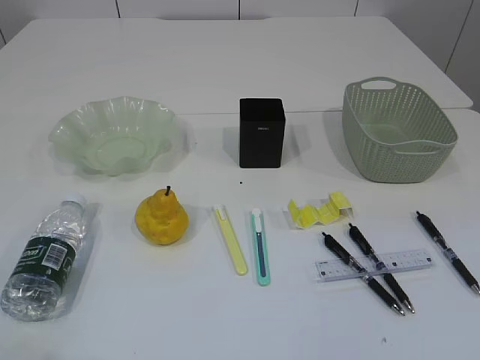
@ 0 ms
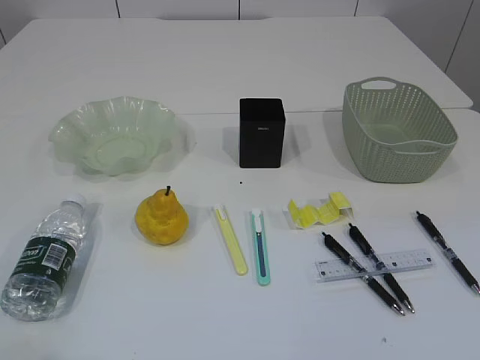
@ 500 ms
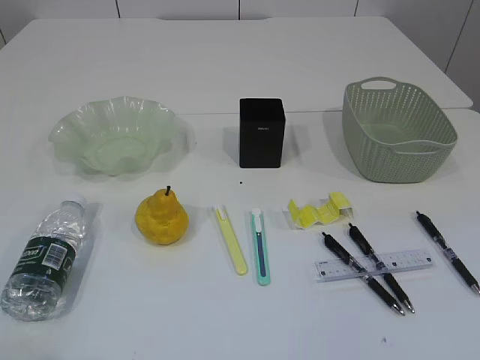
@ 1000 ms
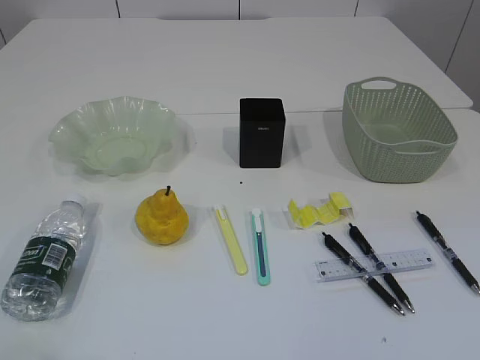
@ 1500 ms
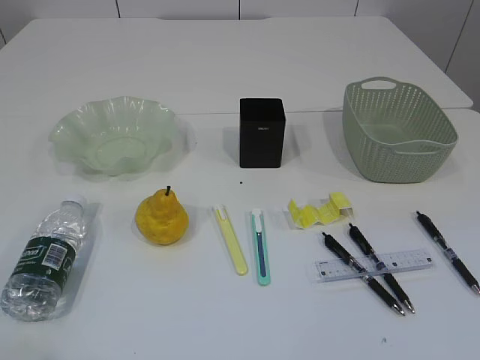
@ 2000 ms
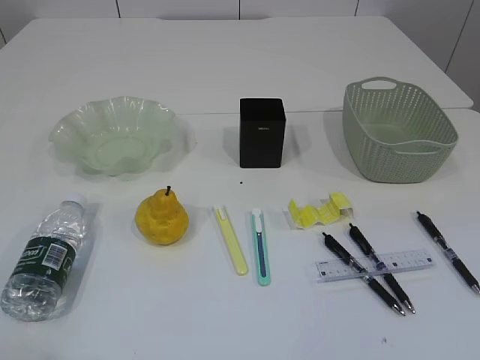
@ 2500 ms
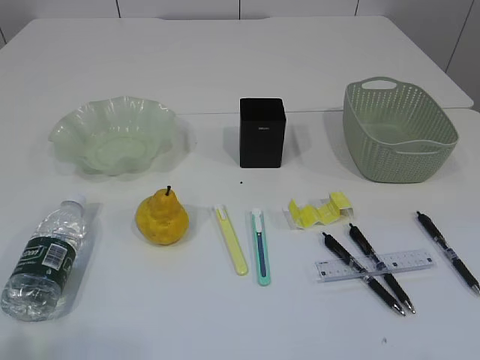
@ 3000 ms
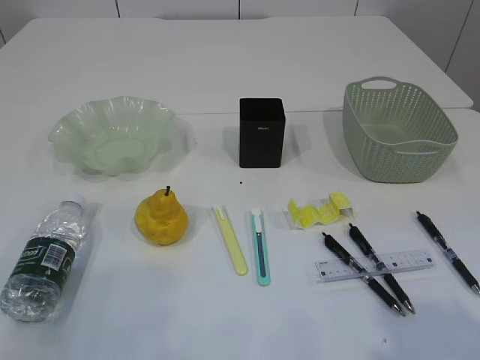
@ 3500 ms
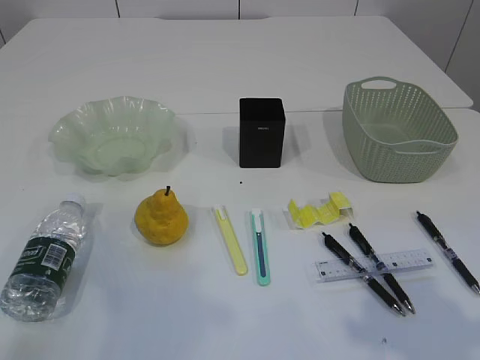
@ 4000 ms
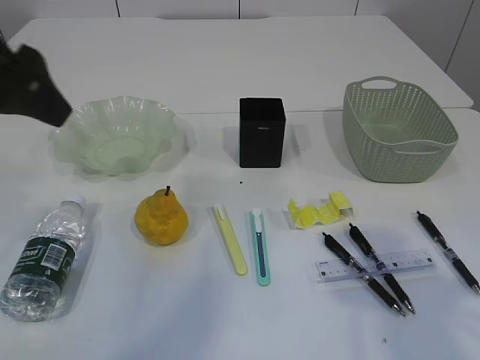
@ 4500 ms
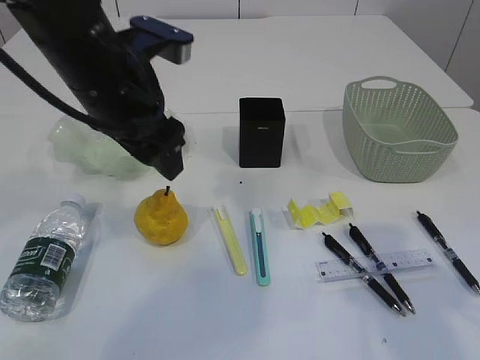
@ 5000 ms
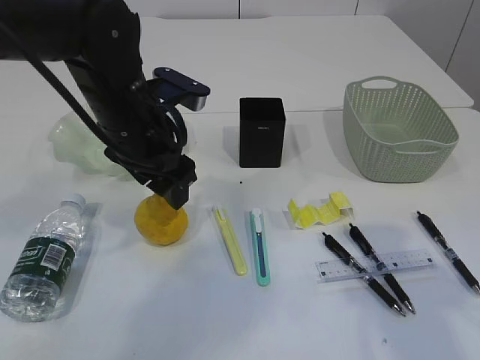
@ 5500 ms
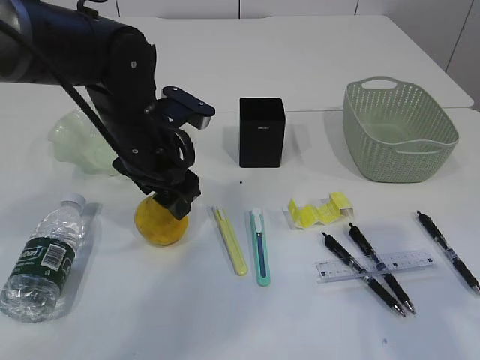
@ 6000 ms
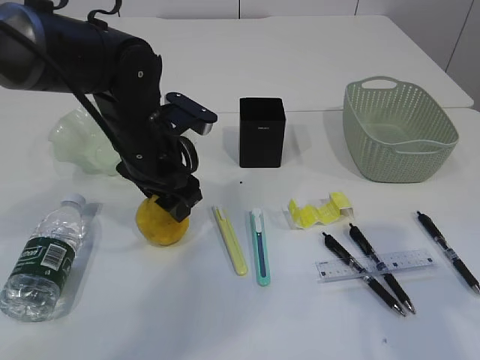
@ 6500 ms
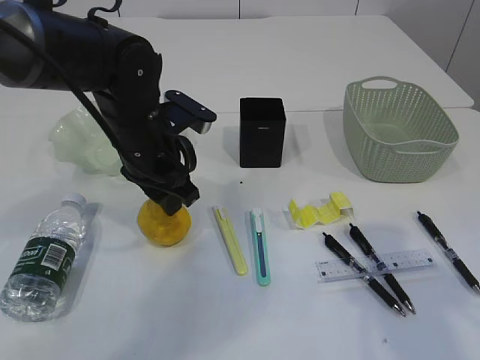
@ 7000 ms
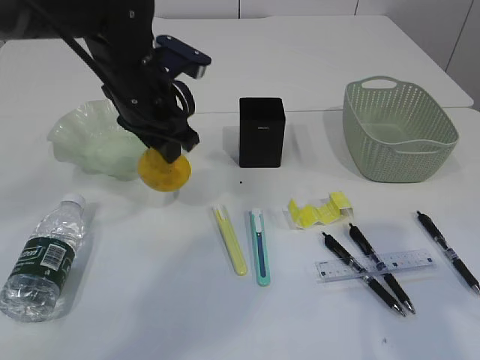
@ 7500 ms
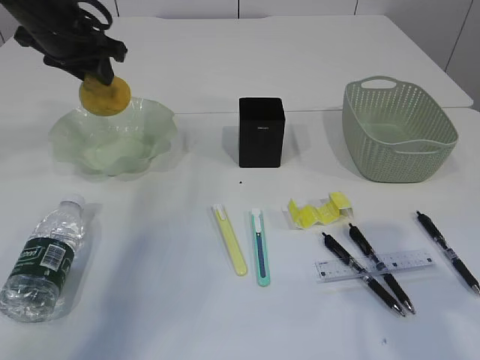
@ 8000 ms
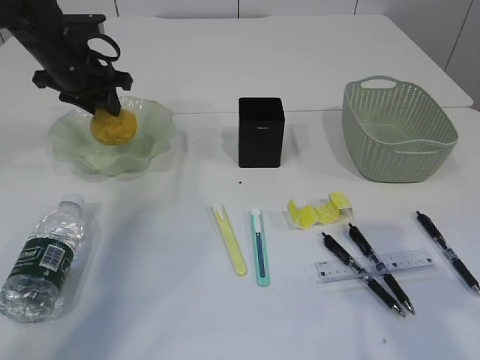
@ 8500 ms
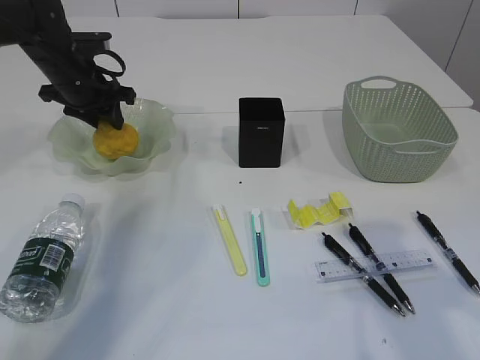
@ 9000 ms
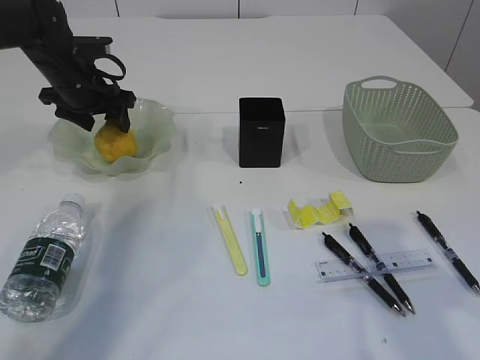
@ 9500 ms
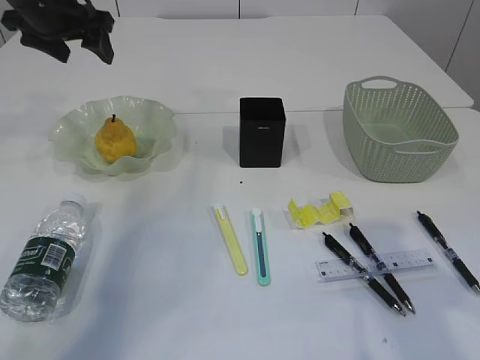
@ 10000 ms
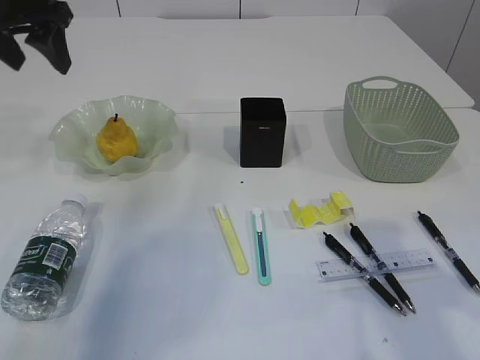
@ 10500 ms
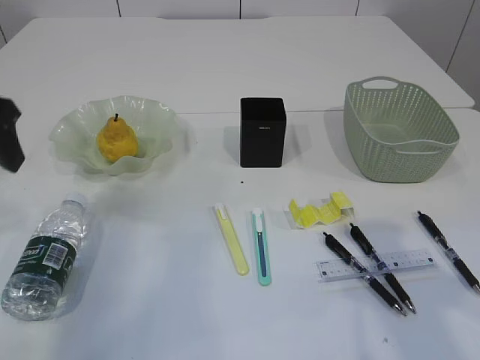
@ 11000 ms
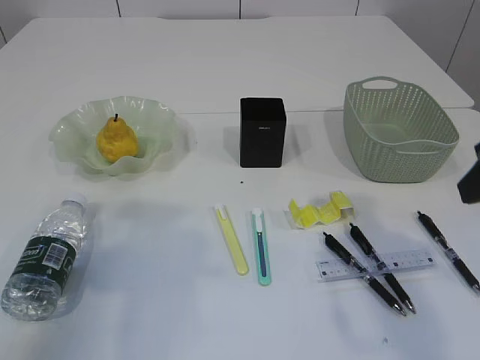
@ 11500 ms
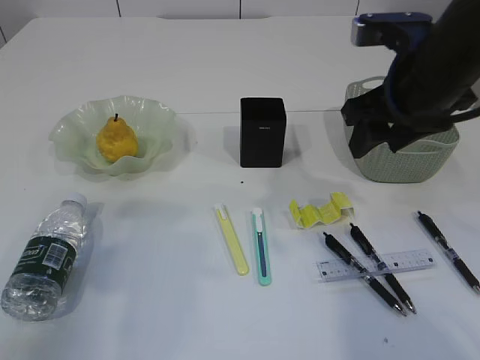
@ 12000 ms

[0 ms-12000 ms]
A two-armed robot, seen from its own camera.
Step, 7500 ms to 9500 ms: Place the pear in the plate.
2000 ms to 4000 ms: The left gripper is displaced forward and upward by some 15 cm. The right gripper heads forward, covering approximately 10 cm.
4000 ms to 6000 ms: The right gripper travels forward by roughly 5 cm. Meanwhile the left gripper shifts approximately 35 cm forward, to the right and downward.
6000 ms to 8000 ms: The left gripper heads to the left, forward and upward, covering roughly 20 cm, and closes up.
8000 ms to 10000 ms: The left gripper goes downward and returns, some 10 cm each way, and opens its fingers.
10000 ms to 12000 ms: The right gripper shifts about 15 cm forward and to the left; the left gripper moves backward, some 30 cm.

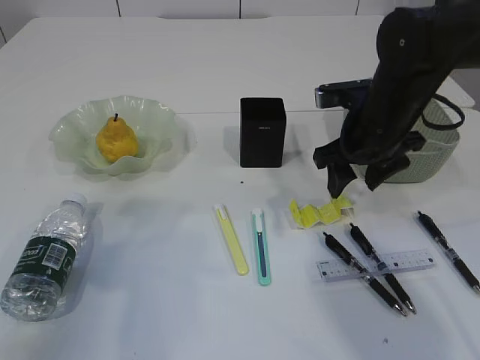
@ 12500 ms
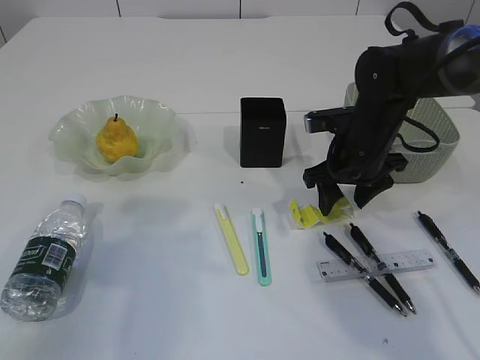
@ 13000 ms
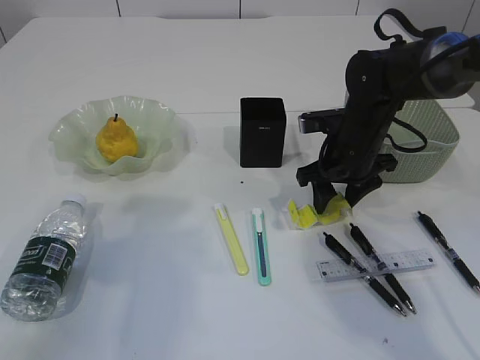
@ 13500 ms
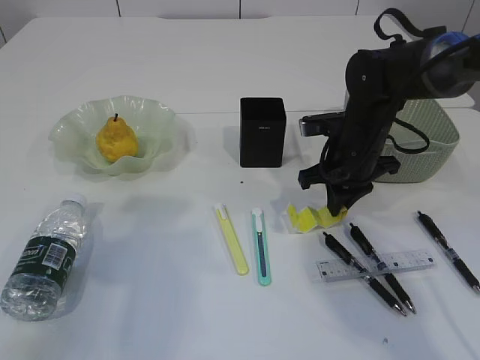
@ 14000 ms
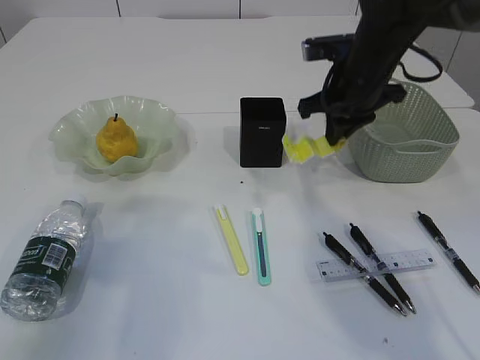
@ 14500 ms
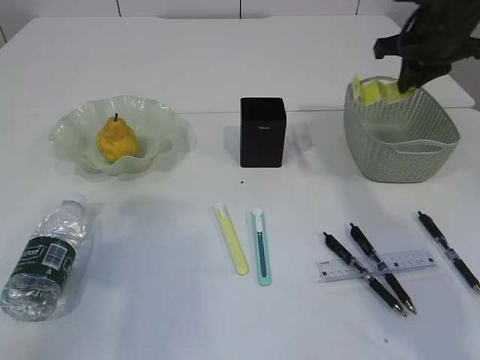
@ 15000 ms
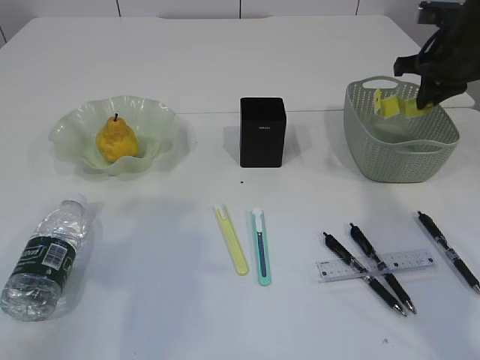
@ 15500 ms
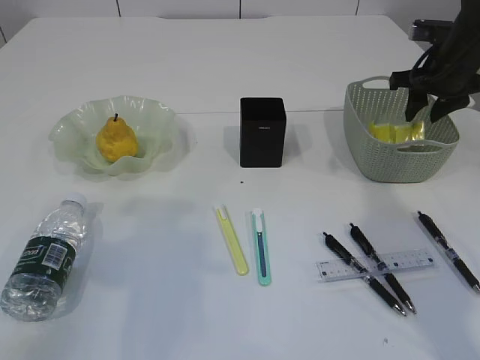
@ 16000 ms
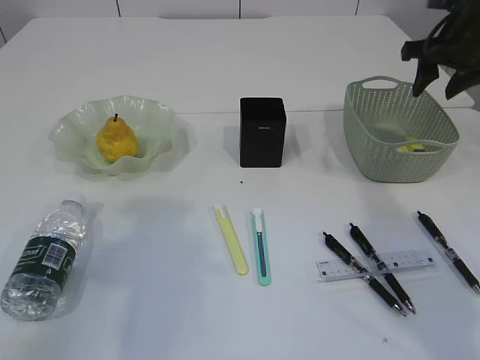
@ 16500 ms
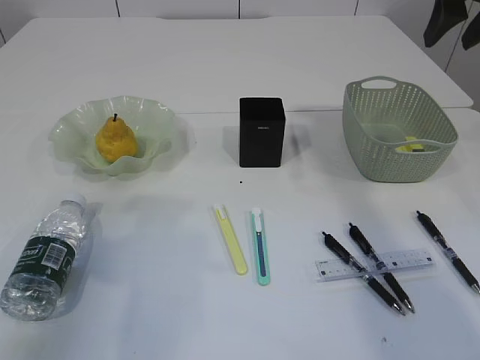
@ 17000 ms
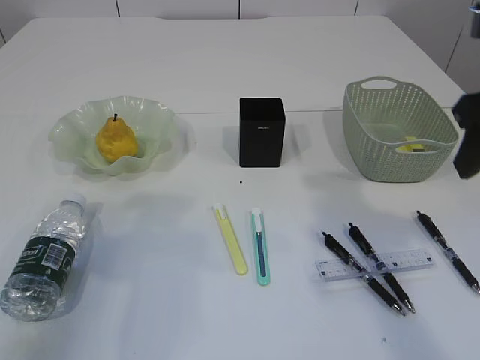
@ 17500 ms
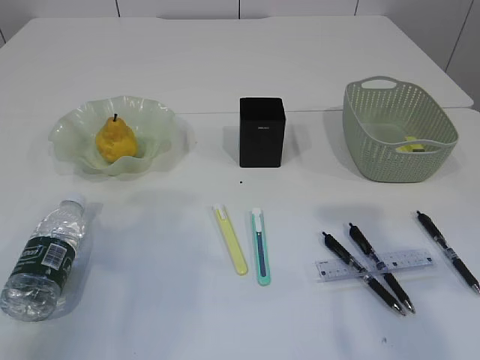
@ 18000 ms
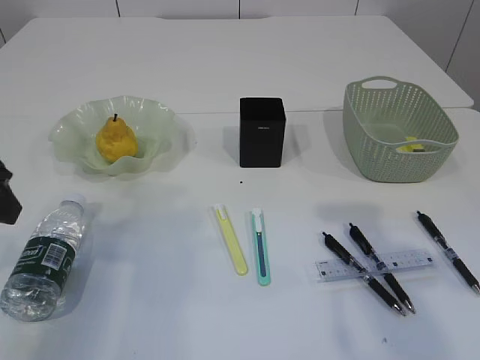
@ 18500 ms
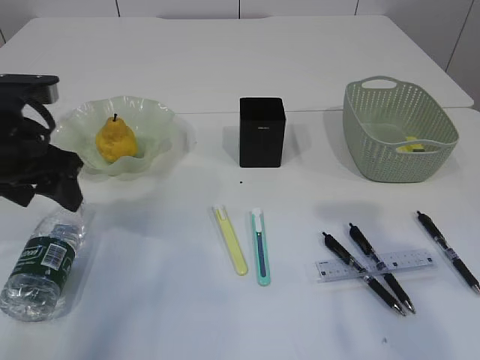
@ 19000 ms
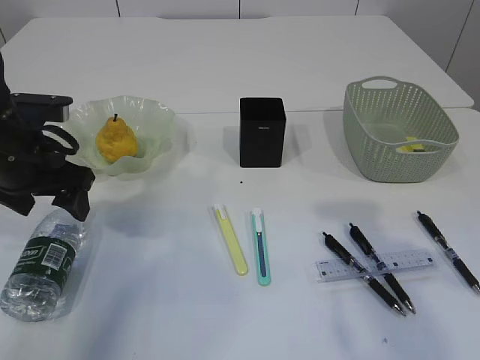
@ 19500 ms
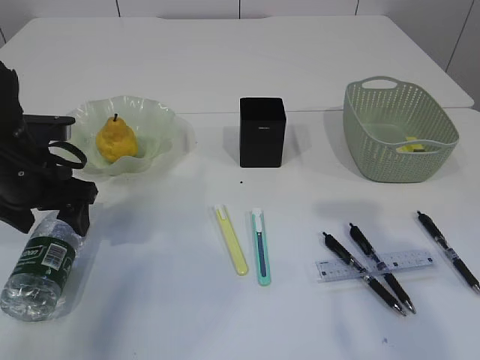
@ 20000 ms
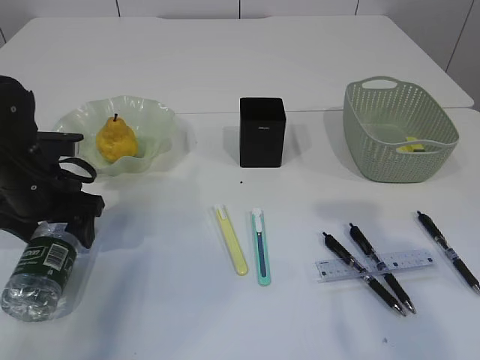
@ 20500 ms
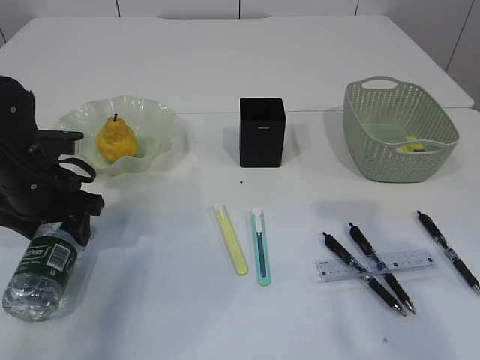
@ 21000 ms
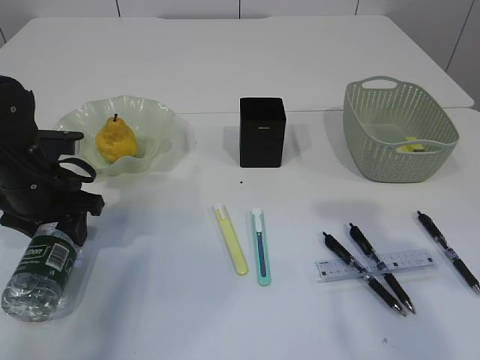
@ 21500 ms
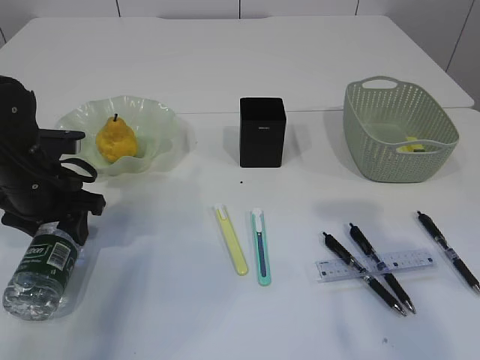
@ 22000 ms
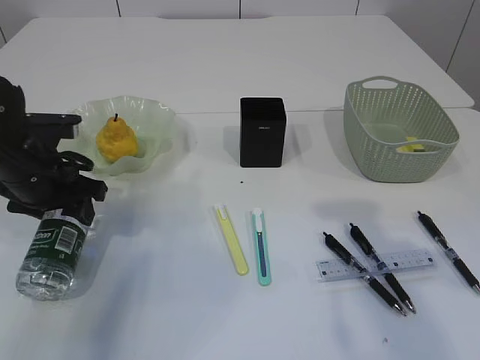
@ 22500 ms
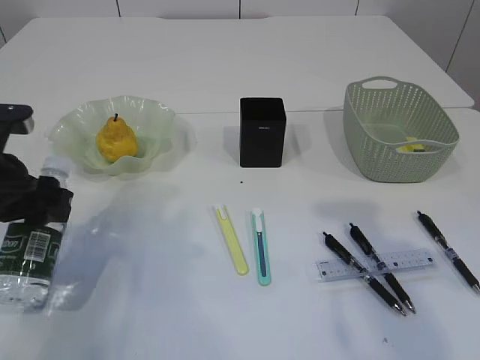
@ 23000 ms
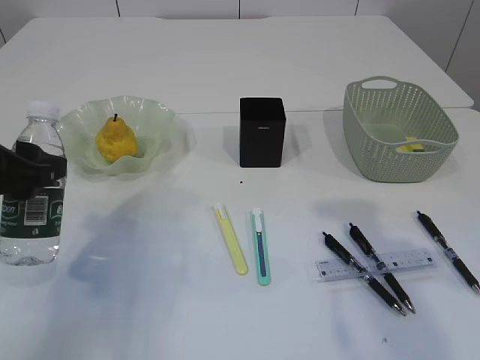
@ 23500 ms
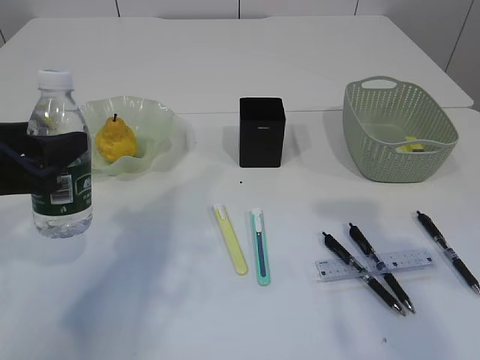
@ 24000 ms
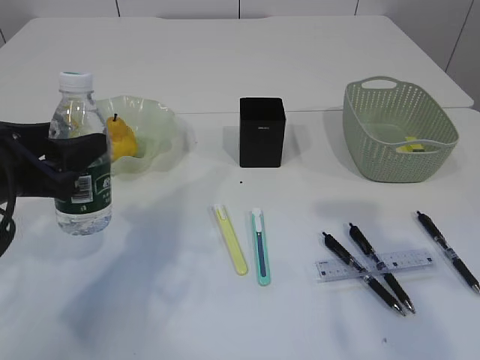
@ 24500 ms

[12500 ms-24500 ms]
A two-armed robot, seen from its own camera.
Step, 14500 ms to 16000 ms: Place the waste paper in the basket.
Step, 16500 ms to 22500 ms: Pick up the bottle with the left arm.
12500 ms to 14500 ms: The right gripper ends up about 5 cm from where it was, and closes up.
14500 ms to 16500 ms: The right gripper is displaced to the right by about 15 cm, and opens its fingers.
16500 ms to 18500 ms: The left gripper moves about 5 cm. The right gripper shifts about 25 cm backward.
18500 ms to 20500 ms: The left gripper heads downward and forward, covering roughly 15 cm.
20500 ms to 22500 ms: The left gripper closes its fingers.
22500 ms to 24500 ms: The left gripper shifts some 10 cm backward and upward.

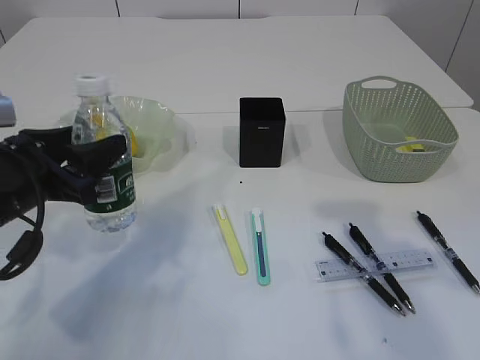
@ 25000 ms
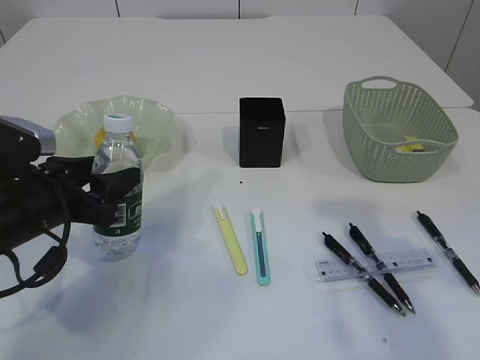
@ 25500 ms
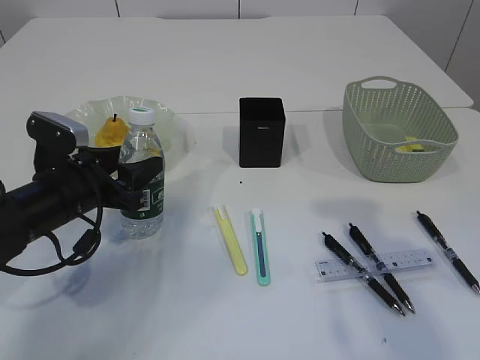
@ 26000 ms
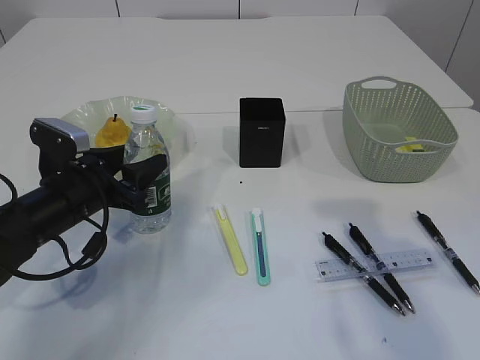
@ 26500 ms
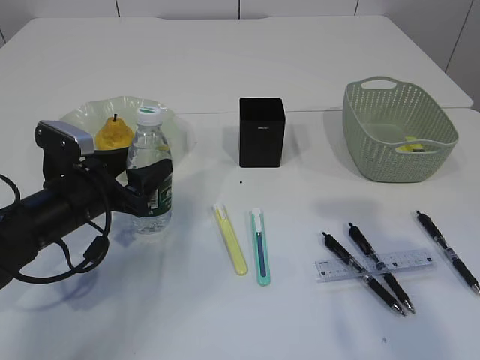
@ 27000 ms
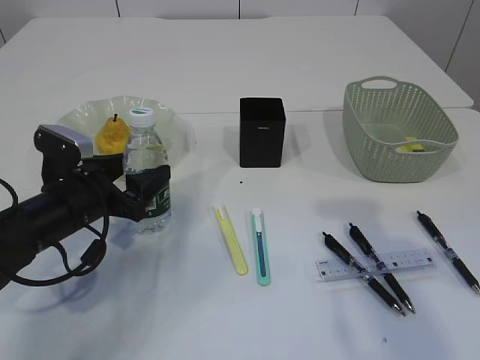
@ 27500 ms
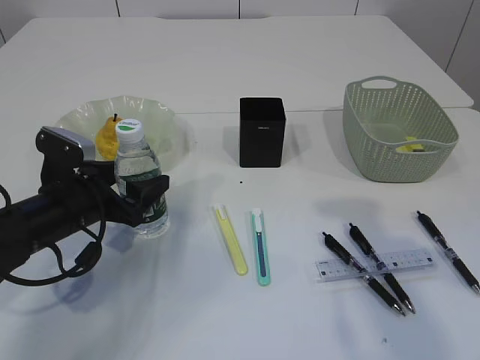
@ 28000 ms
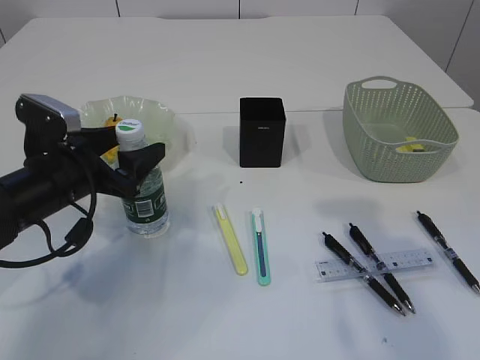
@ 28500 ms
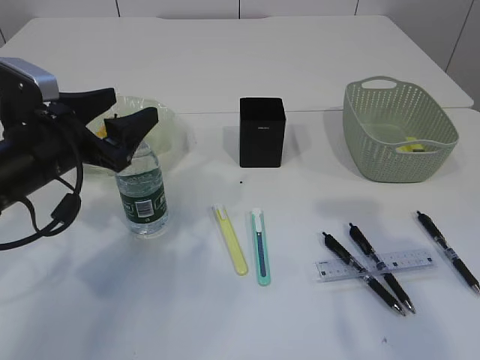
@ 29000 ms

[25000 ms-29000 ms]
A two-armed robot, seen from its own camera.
Step, 25000 ms to 28500 ms: Place the bottle.
25000 ms to 27000 ms: The left gripper shifts roughly 10 cm downward and forward.
27000 ms to 29000 ms: The left gripper moves upward, some 10 cm.
